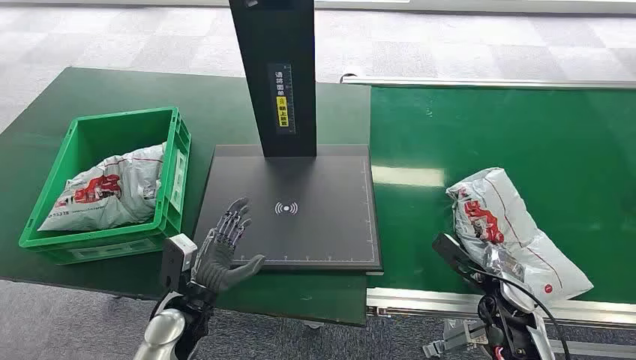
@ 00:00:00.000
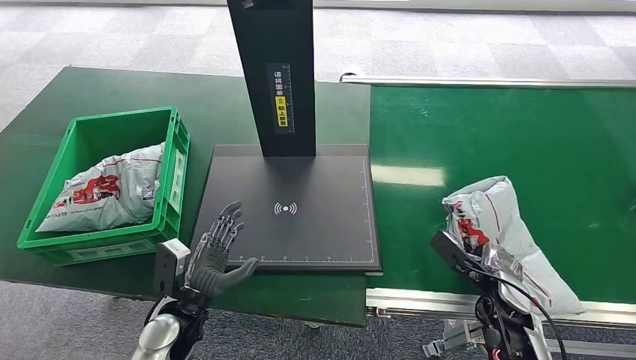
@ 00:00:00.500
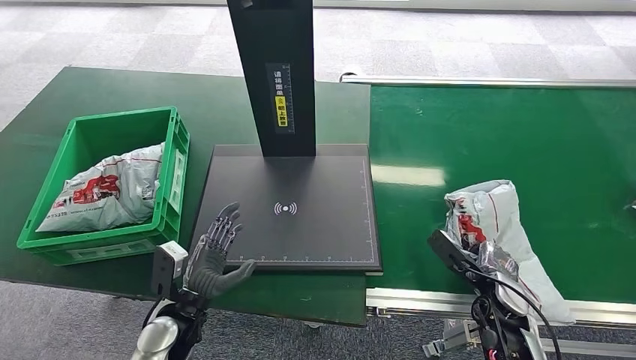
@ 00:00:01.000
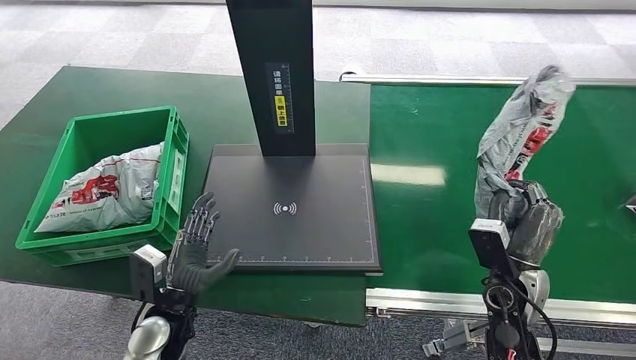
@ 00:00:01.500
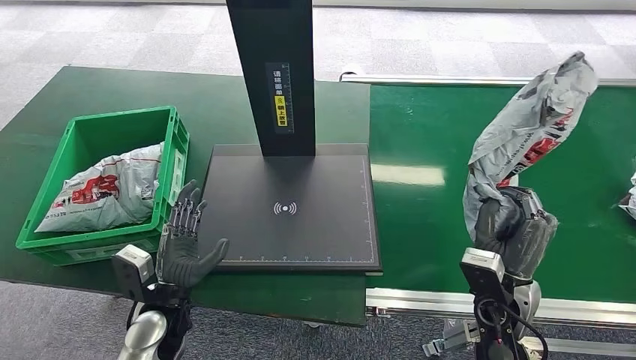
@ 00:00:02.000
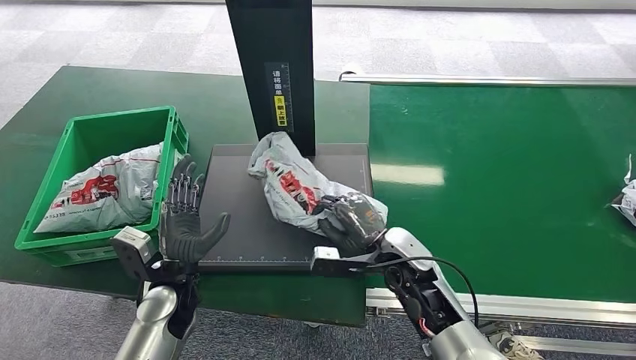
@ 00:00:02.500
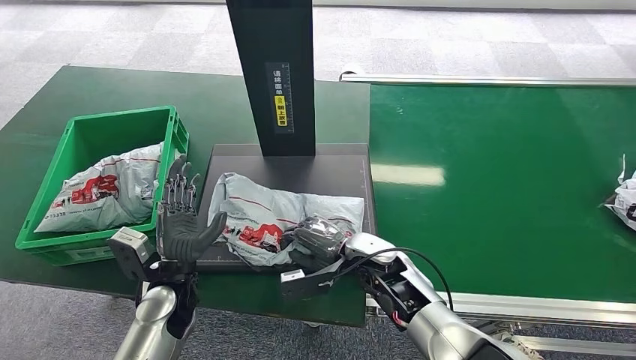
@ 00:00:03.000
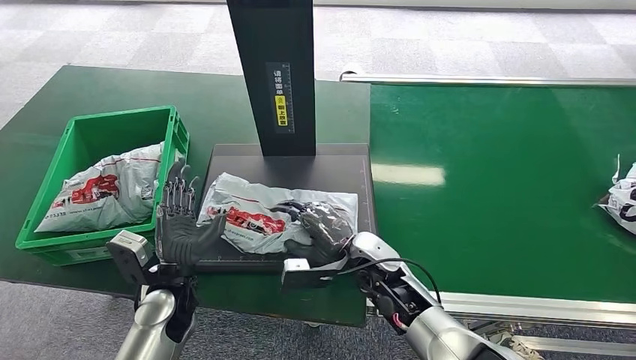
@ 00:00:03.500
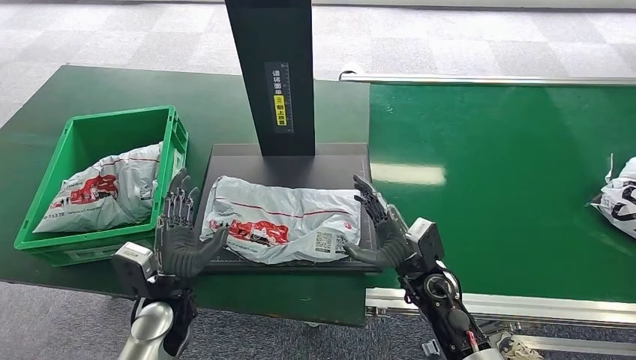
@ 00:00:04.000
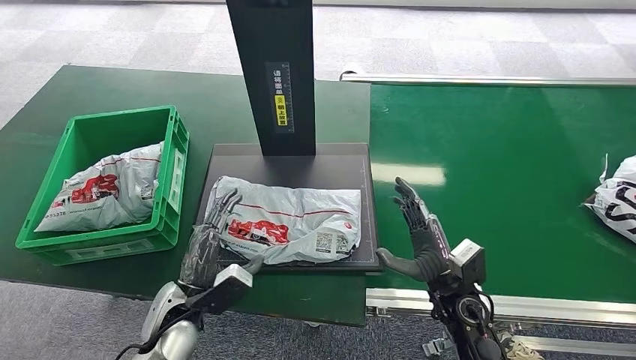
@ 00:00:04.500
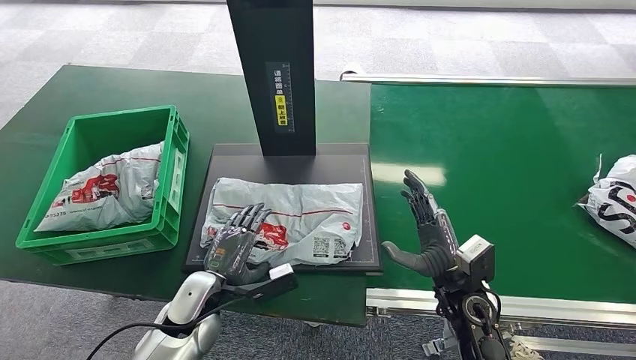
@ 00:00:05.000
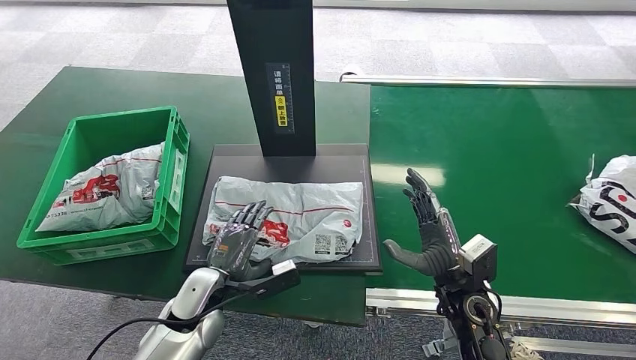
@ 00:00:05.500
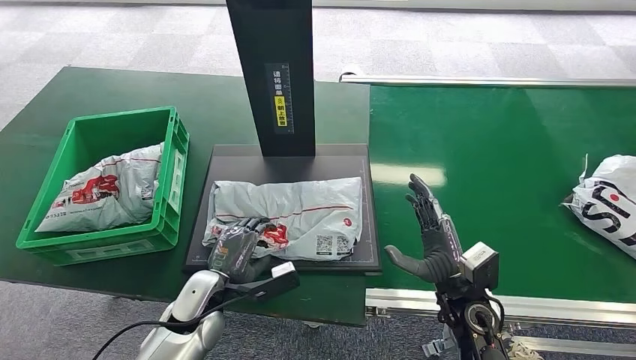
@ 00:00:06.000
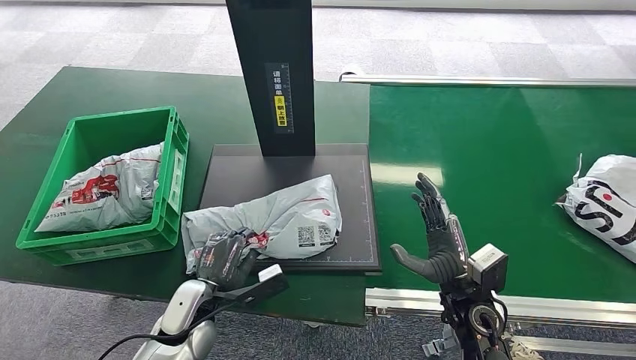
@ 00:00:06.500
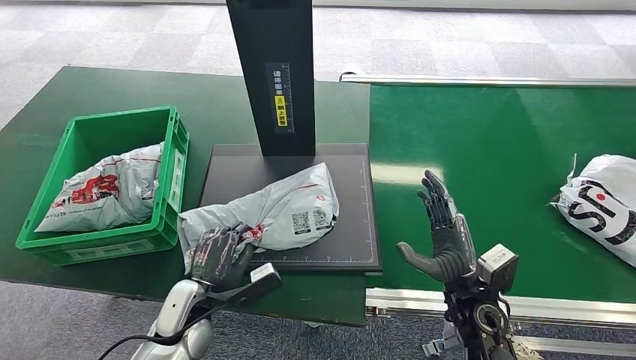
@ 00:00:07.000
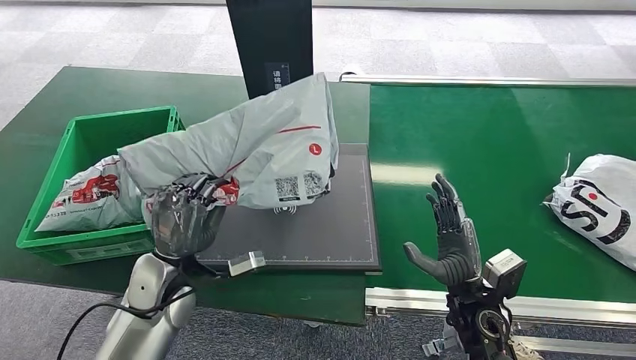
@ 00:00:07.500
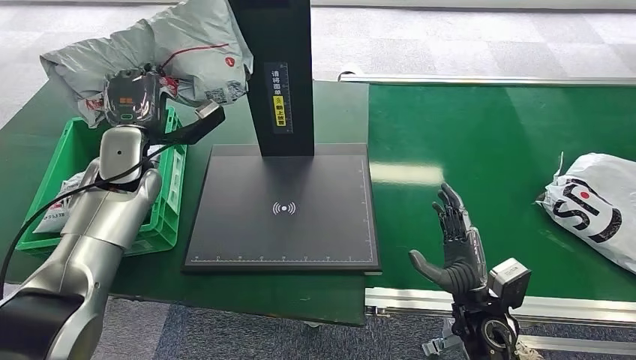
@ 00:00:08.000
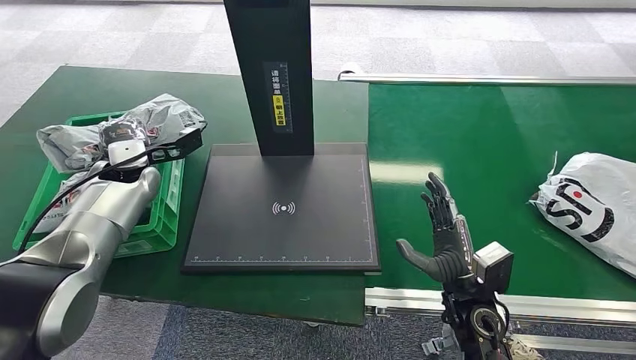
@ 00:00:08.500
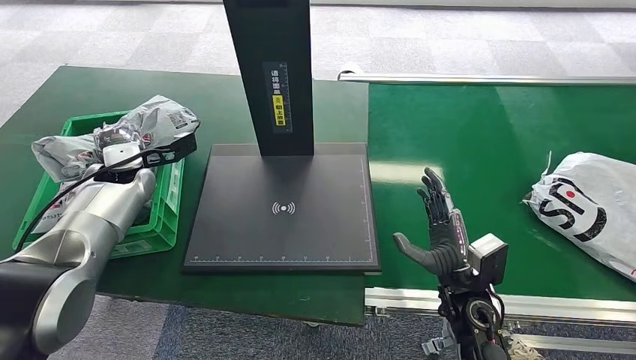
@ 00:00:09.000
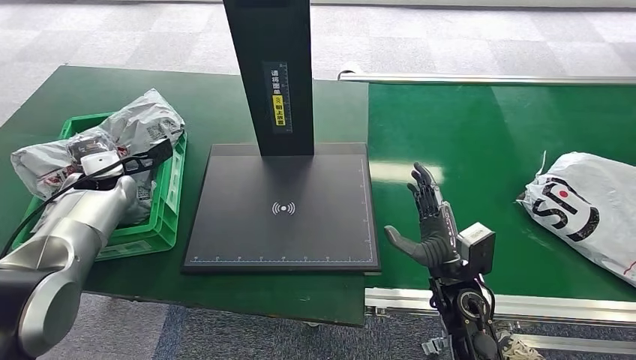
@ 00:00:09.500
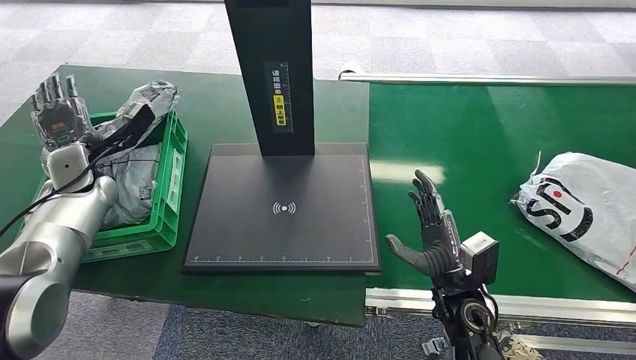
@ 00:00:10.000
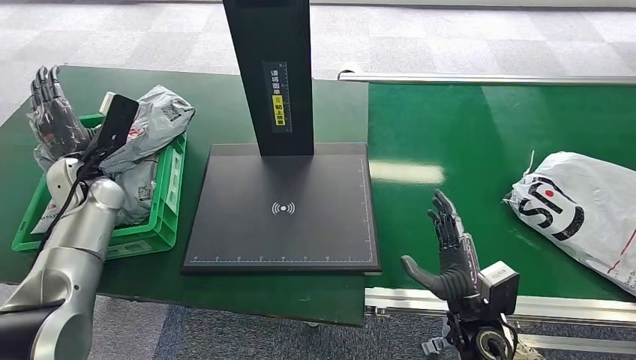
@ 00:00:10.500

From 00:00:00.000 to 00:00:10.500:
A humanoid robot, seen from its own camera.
Step, from 00:00:00.000 to 00:00:02.000: Pick up the package from the conveyor belt.
Step, from 00:00:02.500 to 00:00:04.500: Place the package onto the inbound machine.
Step, from 00:00:05.000 to 00:00:07.500: Pick up the package from the inbound machine.
Step, from 00:00:08.500 to 00:00:10.500: Place the package into the parcel locker.
From 00:00:04.000 to 00:00:06.500: The right hand heads to the right, covering roughly 5 cm.
From 00:00:08.500 to 00:00:10.500: The left hand goes roughly 5 cm to the left.

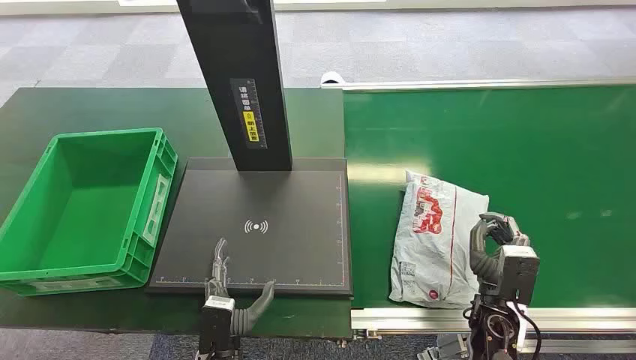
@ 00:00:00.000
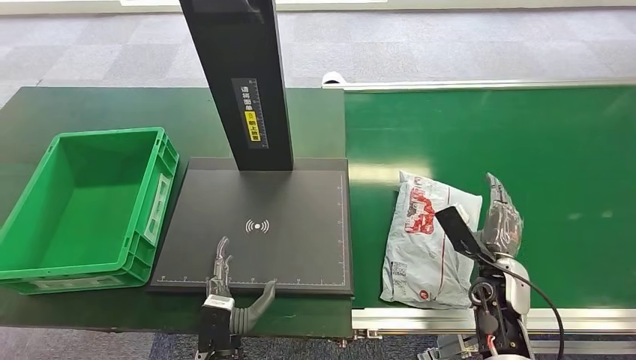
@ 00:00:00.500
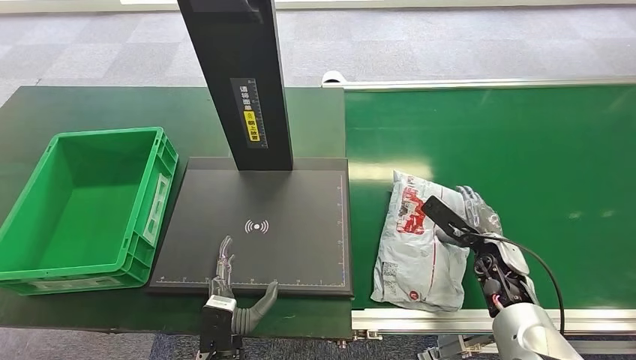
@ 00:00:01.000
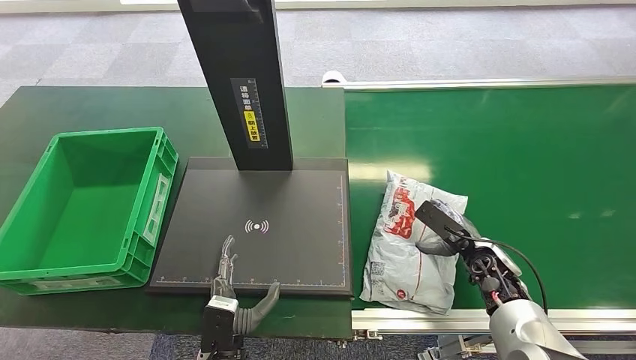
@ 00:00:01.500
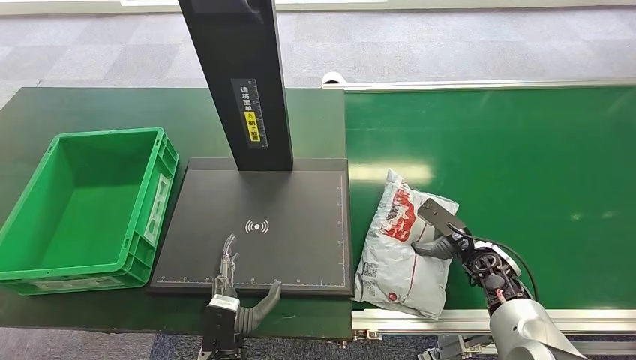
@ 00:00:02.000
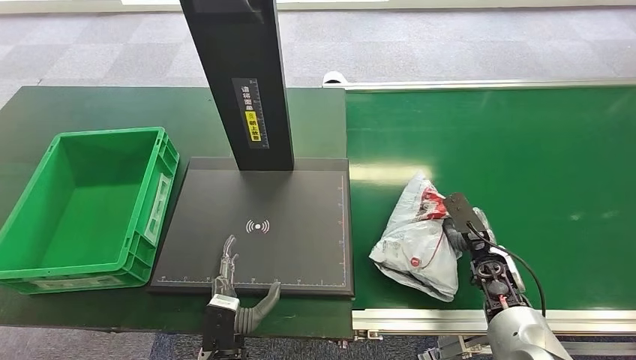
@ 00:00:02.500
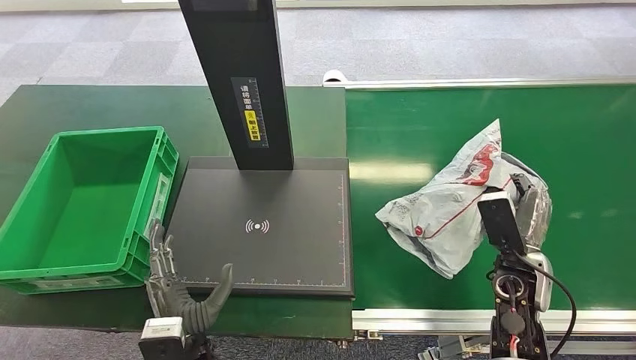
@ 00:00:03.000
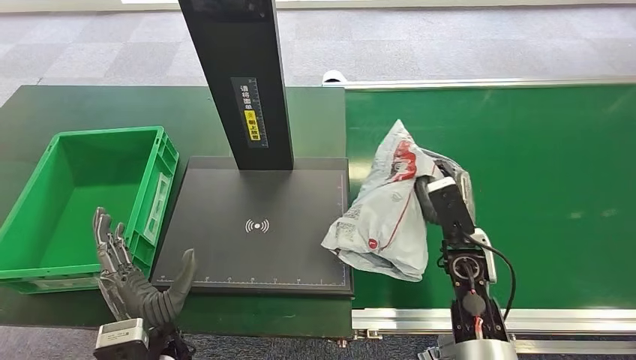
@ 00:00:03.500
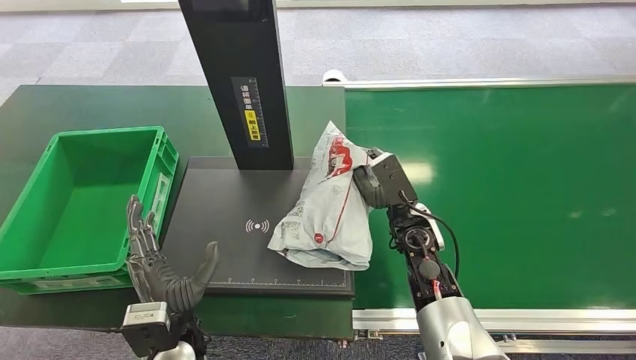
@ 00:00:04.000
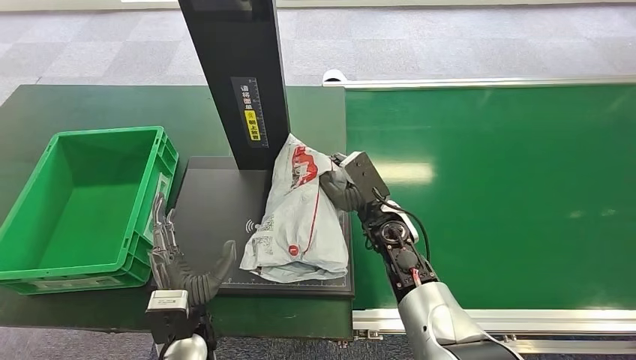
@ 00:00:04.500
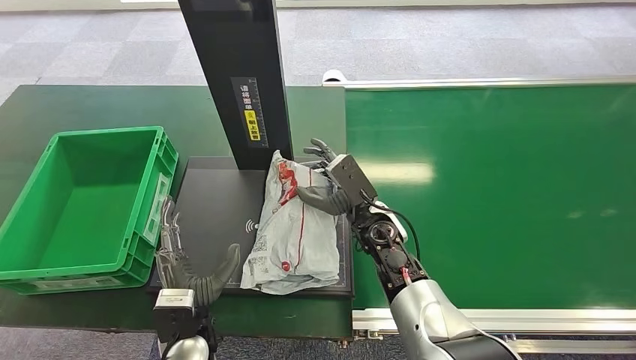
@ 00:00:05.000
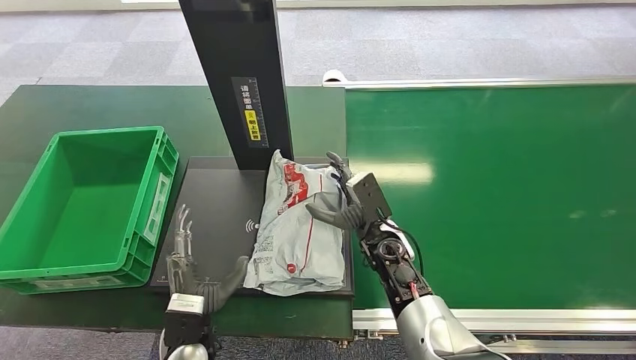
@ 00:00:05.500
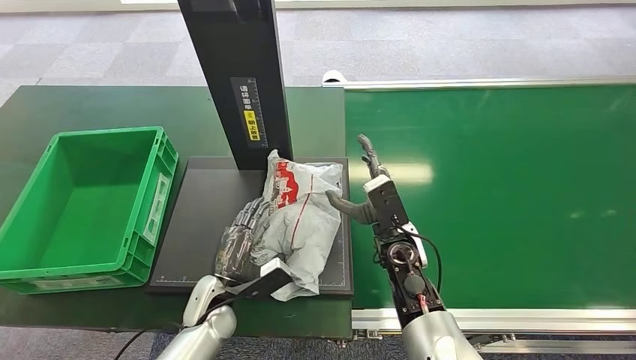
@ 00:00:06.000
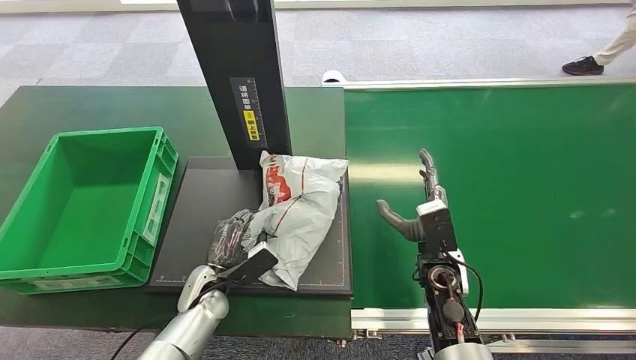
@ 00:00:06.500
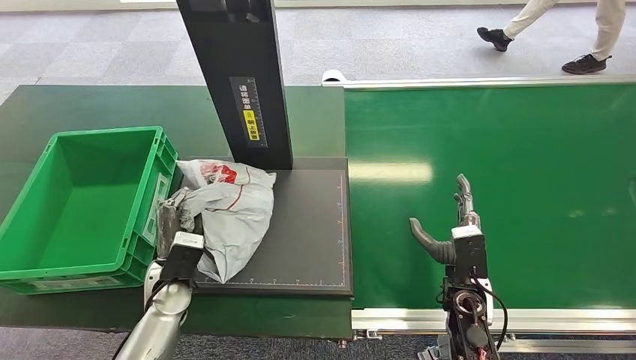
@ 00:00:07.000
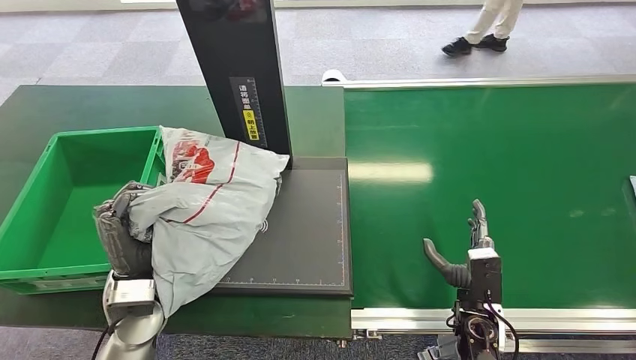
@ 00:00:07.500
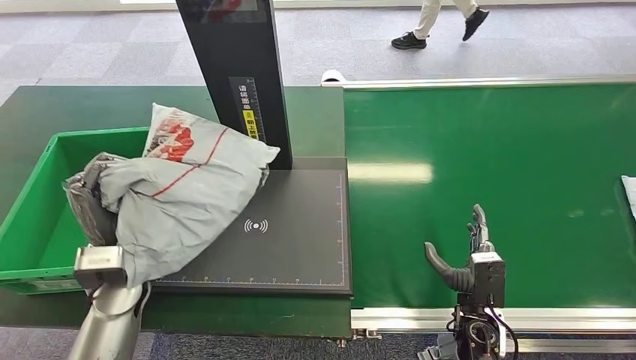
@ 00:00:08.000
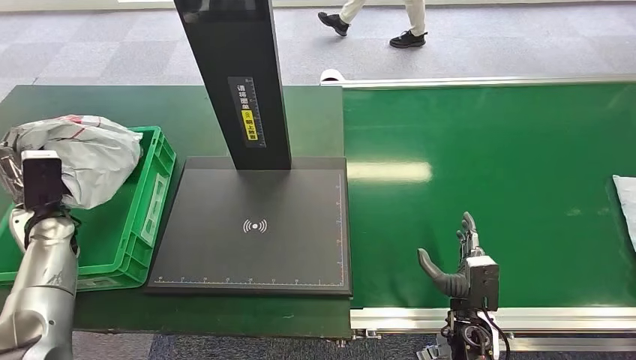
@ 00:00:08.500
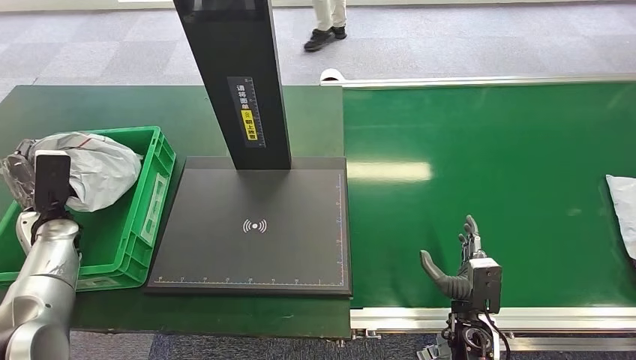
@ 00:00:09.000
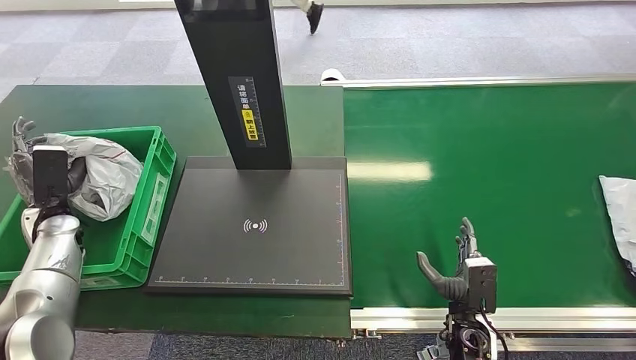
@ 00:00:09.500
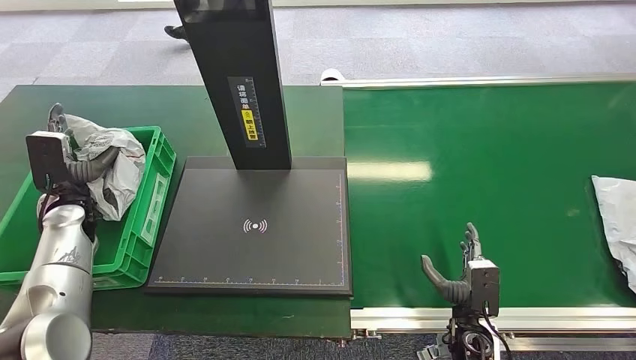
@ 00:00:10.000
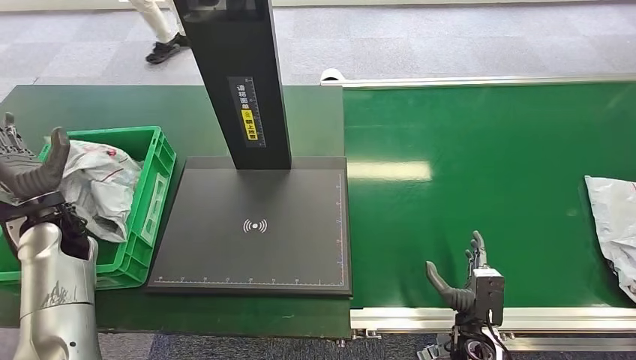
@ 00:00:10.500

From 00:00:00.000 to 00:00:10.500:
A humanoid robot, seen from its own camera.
Step, from 00:00:00.000 to 00:00:02.500: Pick up the package from the conveyor belt.
Step, from 00:00:03.500 to 00:00:05.500: Place the package onto the inbound machine.
Step, from 00:00:06.000 to 00:00:07.000: Pick up the package from the inbound machine.
Step, from 00:00:08.000 to 00:00:10.500: Place the package into the parcel locker.
From 00:00:04.000 to 00:00:06.500: The right hand goes some 5 cm backward. Meanwhile the left hand shifts roughly 15 cm forward and downward.
From 00:00:08.500 to 00:00:10.500: The left hand moves some 5 cm.
